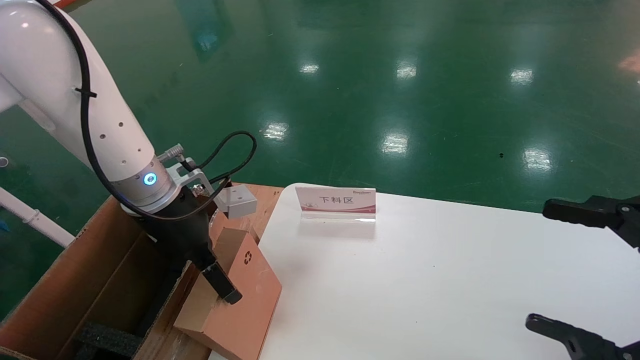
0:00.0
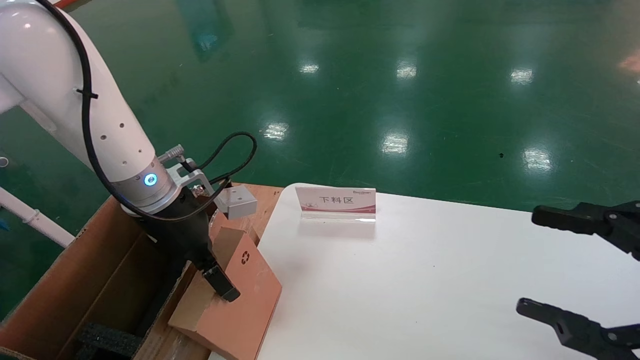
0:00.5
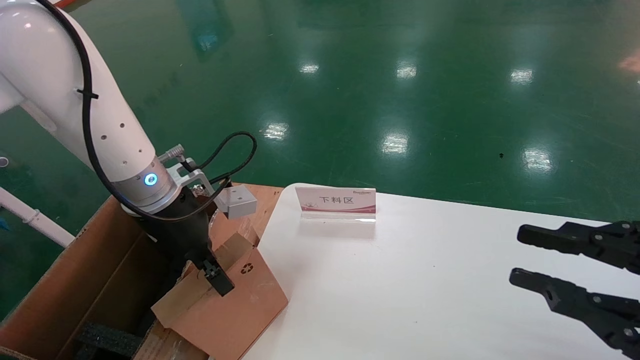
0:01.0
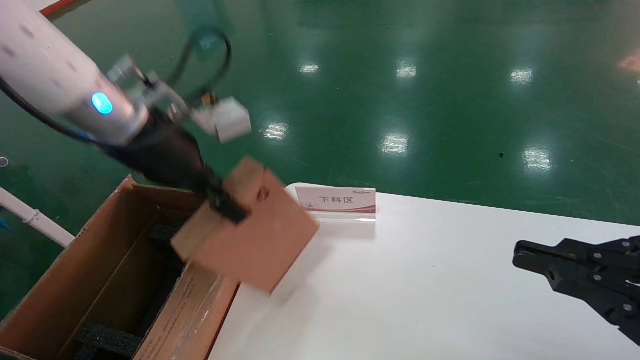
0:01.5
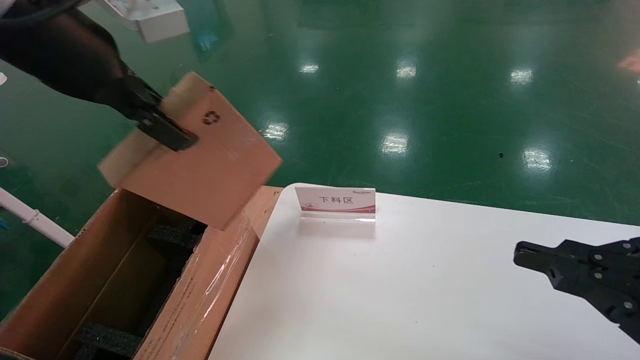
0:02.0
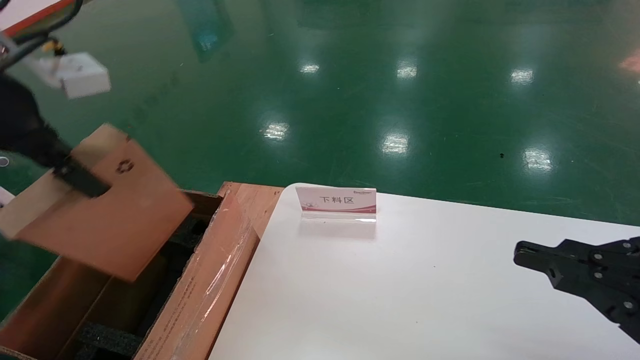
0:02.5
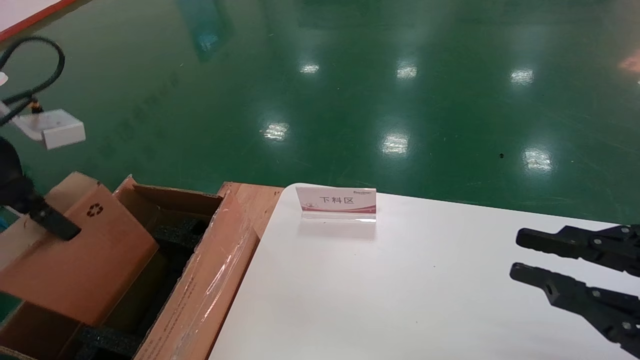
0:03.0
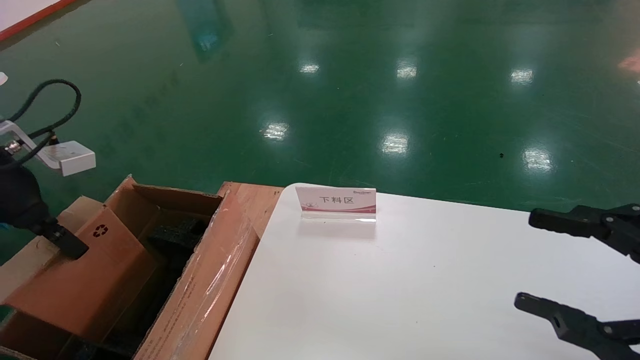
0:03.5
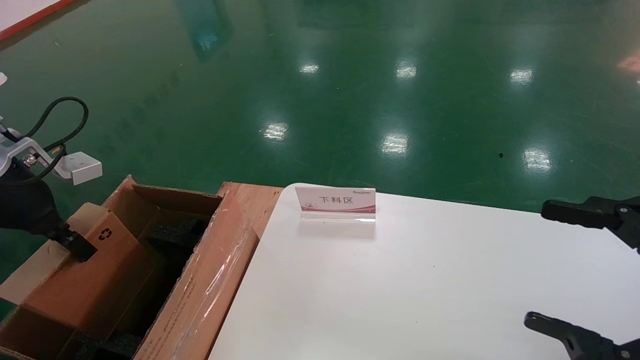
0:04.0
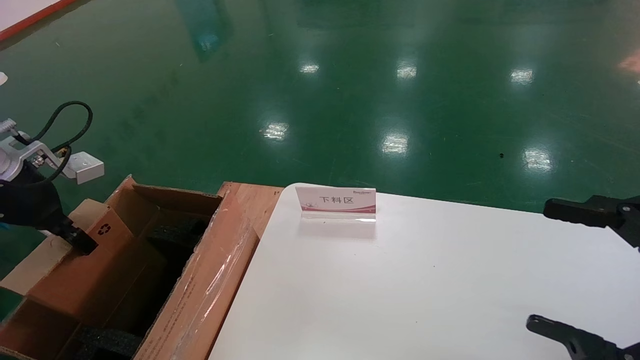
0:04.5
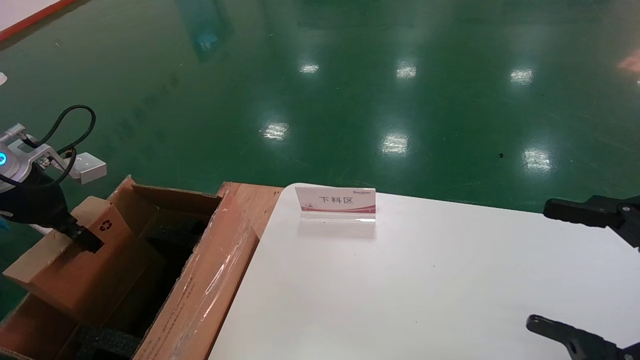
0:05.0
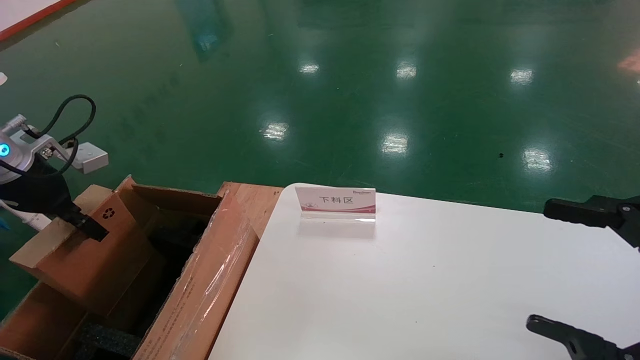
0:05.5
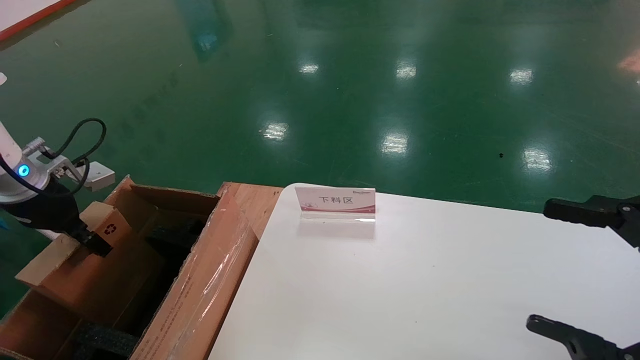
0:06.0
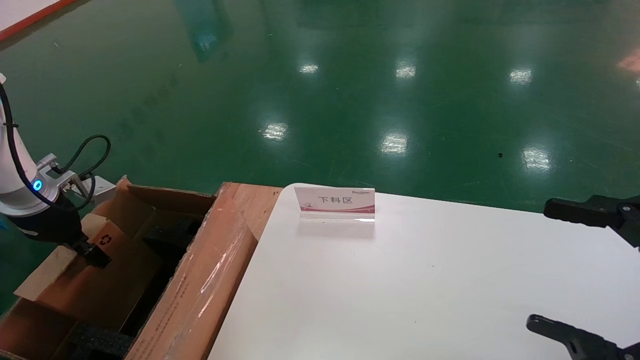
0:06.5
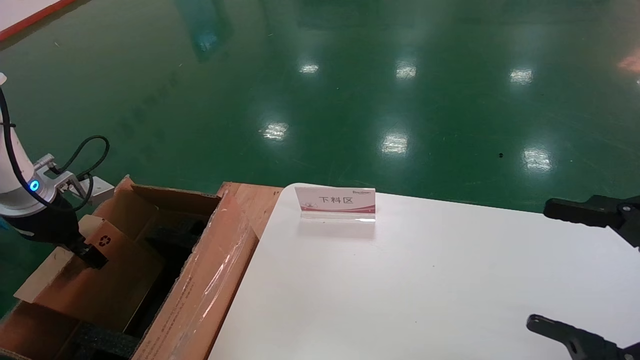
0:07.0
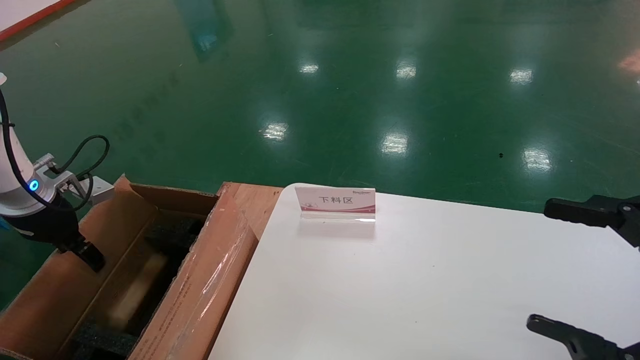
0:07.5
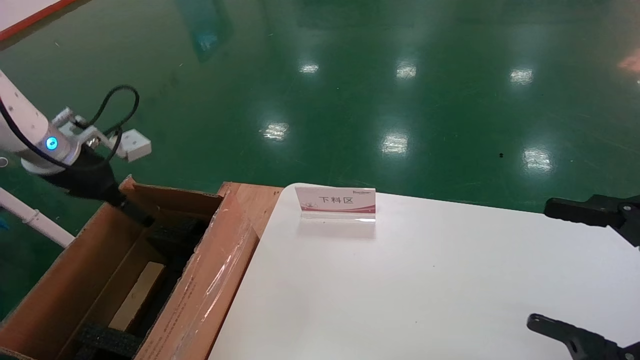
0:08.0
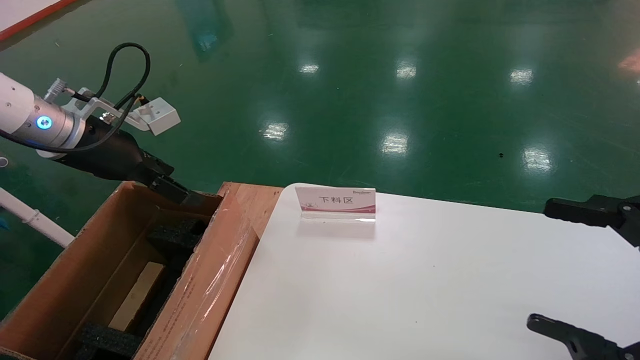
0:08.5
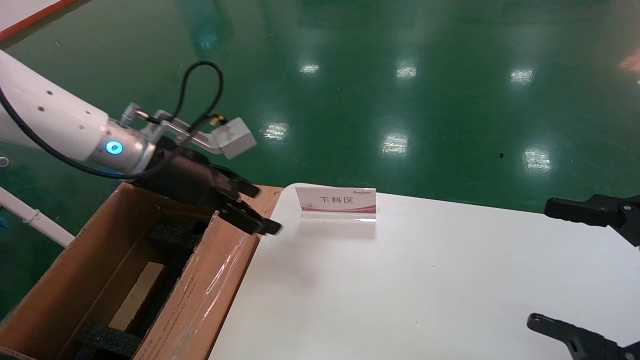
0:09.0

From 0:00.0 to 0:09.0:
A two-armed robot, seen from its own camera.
Task of the whole recording: pick up the small cardboard box and load it into the large cardboard box.
Step, from 0:01.5 to 0:07.5: Place the mouse and power cord box into the case.
From 0:00.0 to 0:02.0: The right gripper closes its fingers; the left gripper is displaced upward and backward by some 20 cm, and closes.
From 0:02.0 to 0:04.5: The left gripper is displaced to the left and downward by about 25 cm; the right gripper opens its fingers.
From 0:04.5 to 0:07.0: The left gripper shifts some 5 cm downward.
From 0:07.0 to 0:09.0: The left gripper is displaced to the right by roughly 20 cm, and opens up.

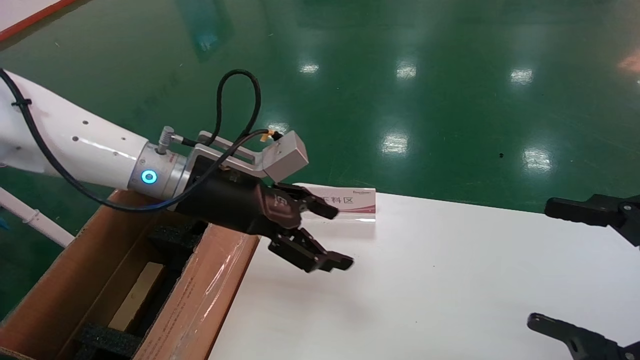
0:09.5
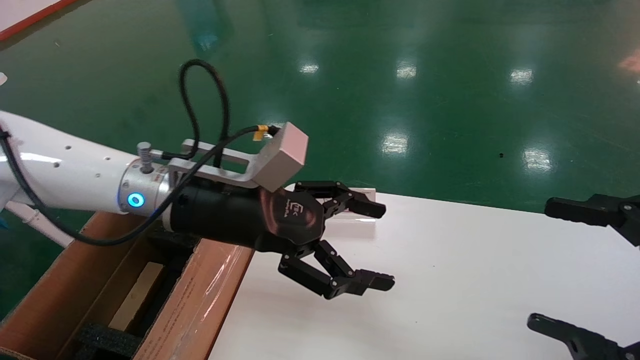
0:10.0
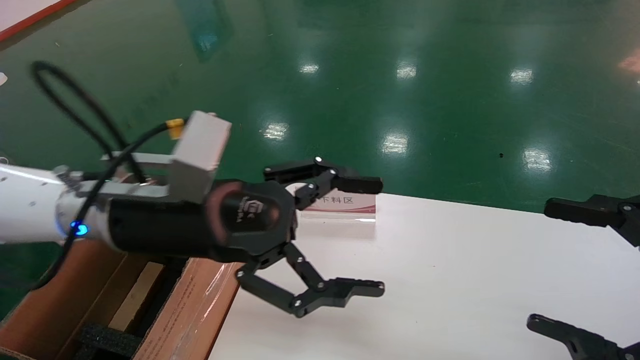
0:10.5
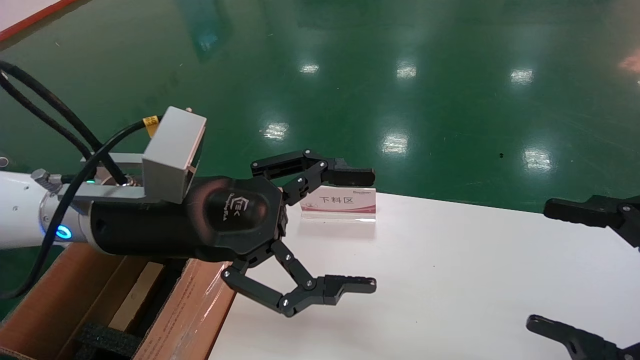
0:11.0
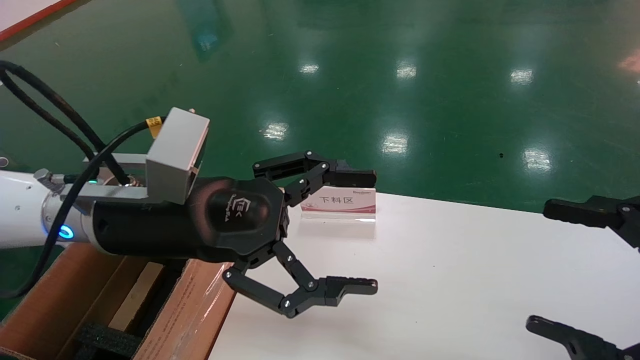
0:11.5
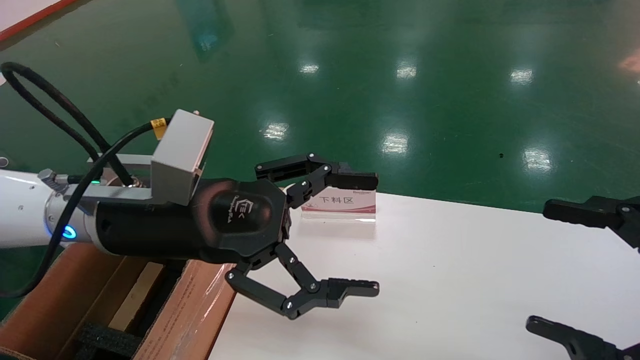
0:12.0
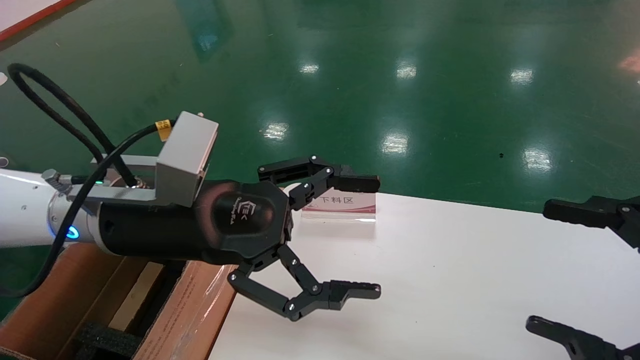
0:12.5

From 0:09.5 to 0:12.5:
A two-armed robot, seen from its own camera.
Task of the whole recording: pick up the small cardboard box and load it into the large cardboard box.
From 0:09.5 to 0:11.0: The left gripper is displaced backward by approximately 10 cm.
From 0:11.0 to 0:12.5: Both grippers stay put.
